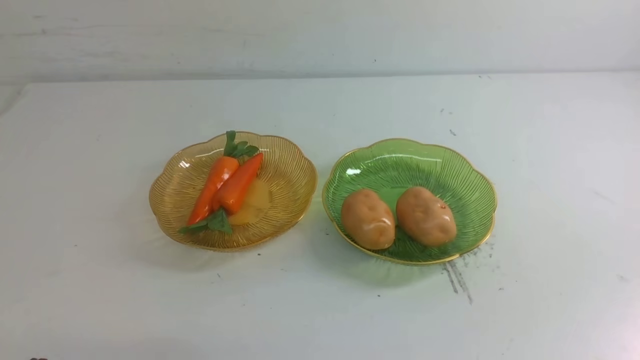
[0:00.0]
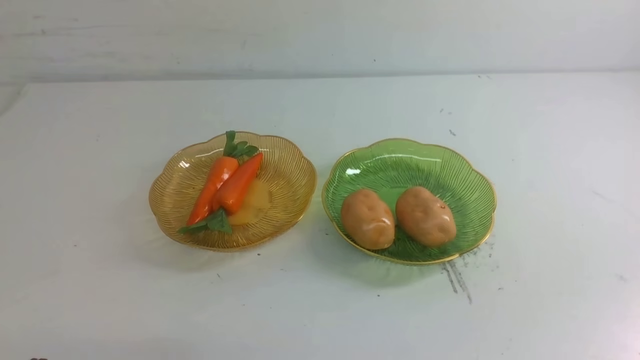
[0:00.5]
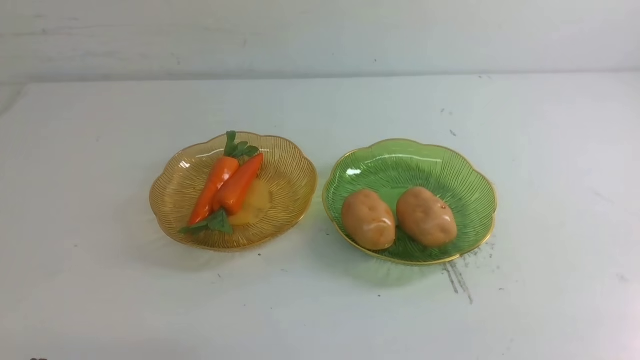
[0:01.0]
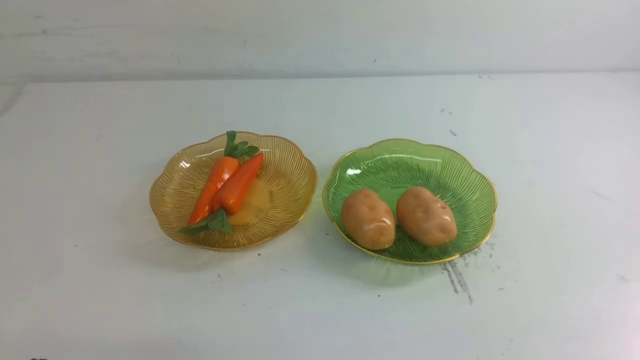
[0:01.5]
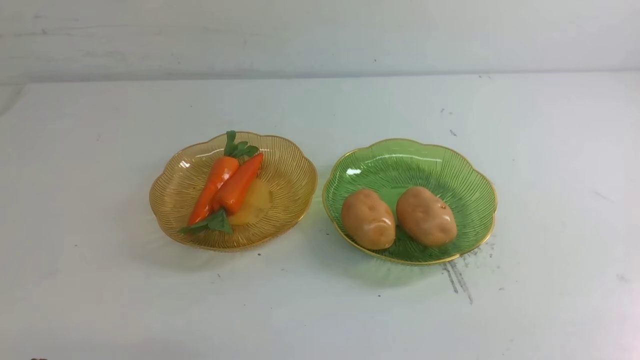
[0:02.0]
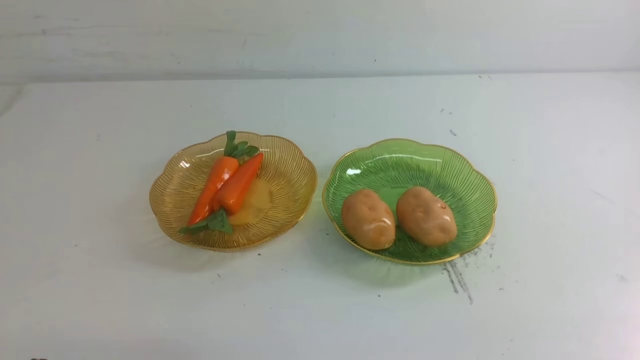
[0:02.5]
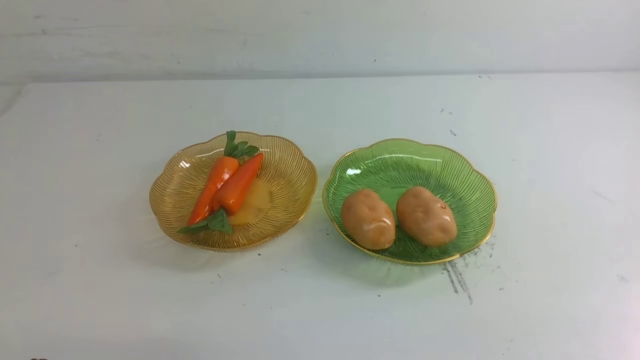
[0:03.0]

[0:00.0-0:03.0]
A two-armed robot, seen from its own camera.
0:01.5 to 0:03.0: The two grippers keep their place.
